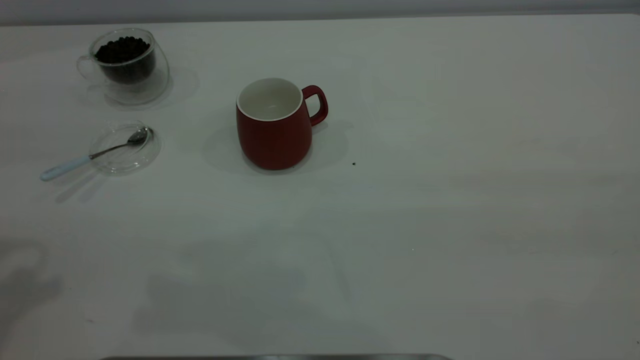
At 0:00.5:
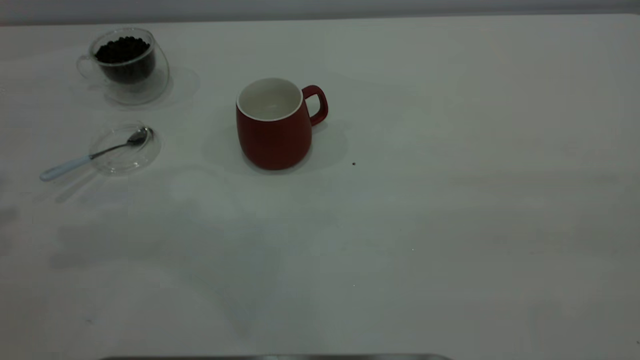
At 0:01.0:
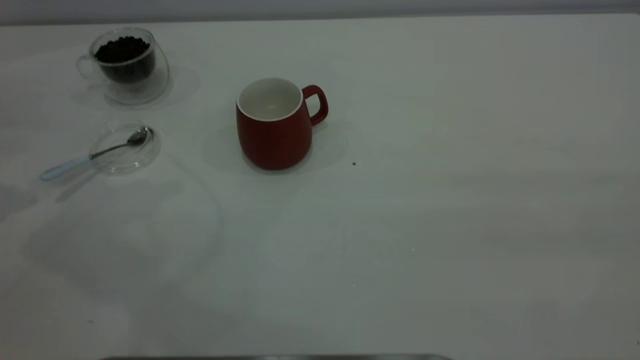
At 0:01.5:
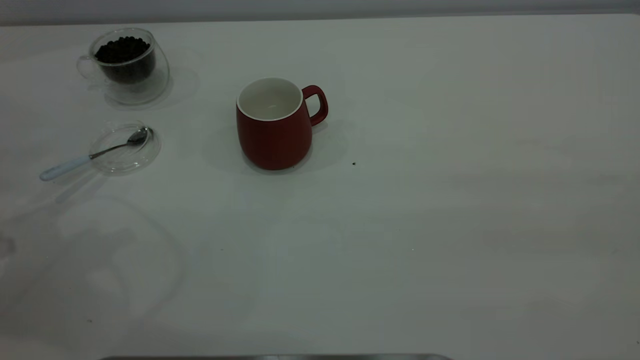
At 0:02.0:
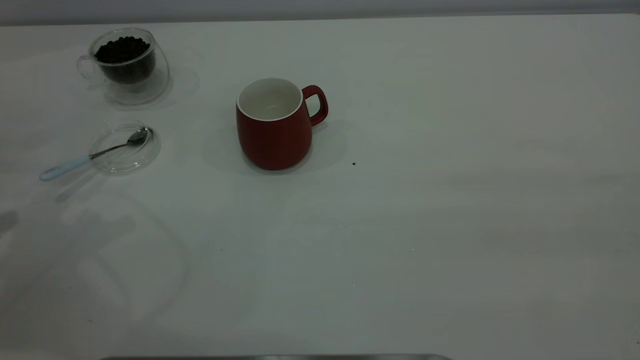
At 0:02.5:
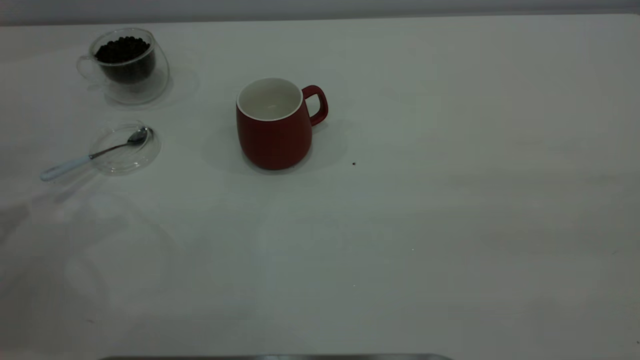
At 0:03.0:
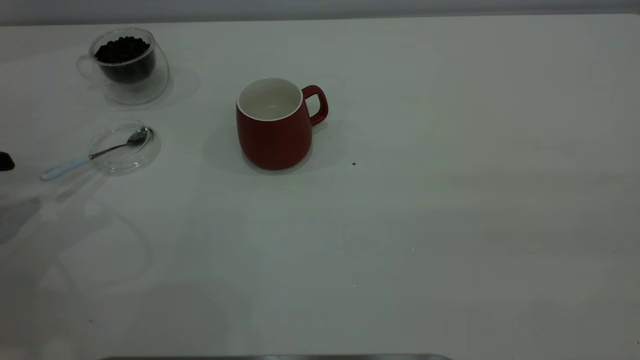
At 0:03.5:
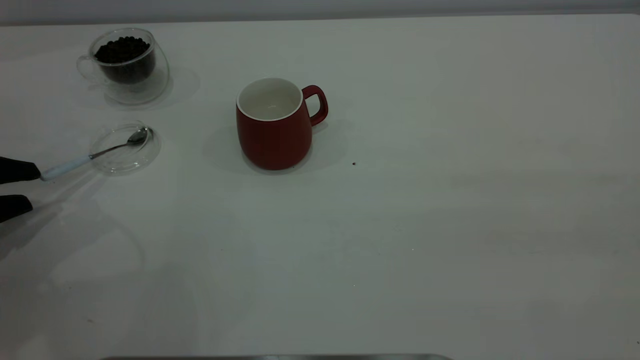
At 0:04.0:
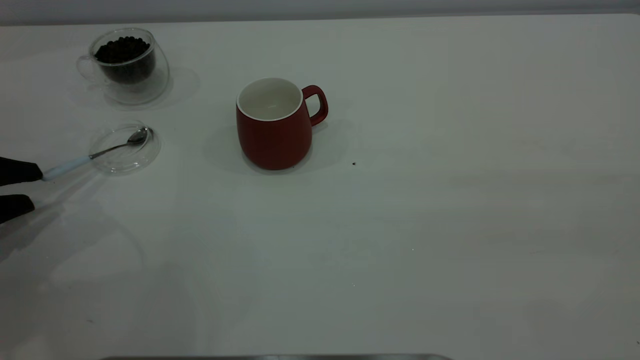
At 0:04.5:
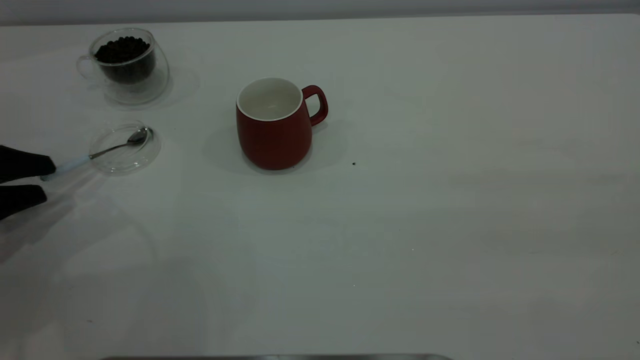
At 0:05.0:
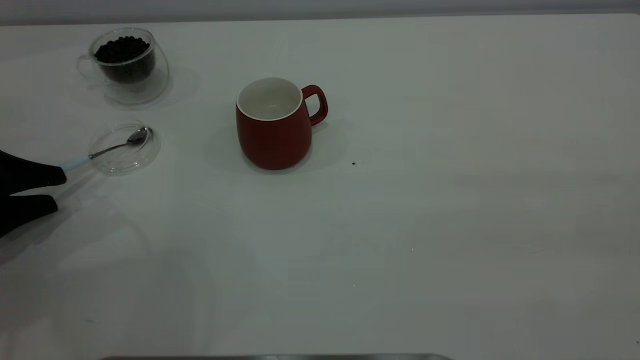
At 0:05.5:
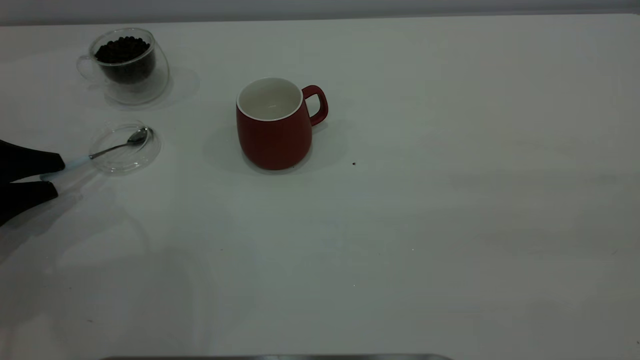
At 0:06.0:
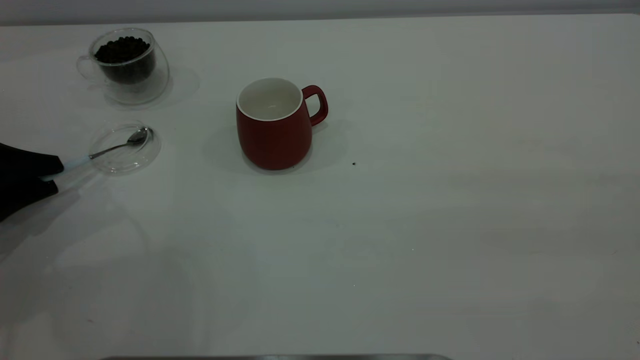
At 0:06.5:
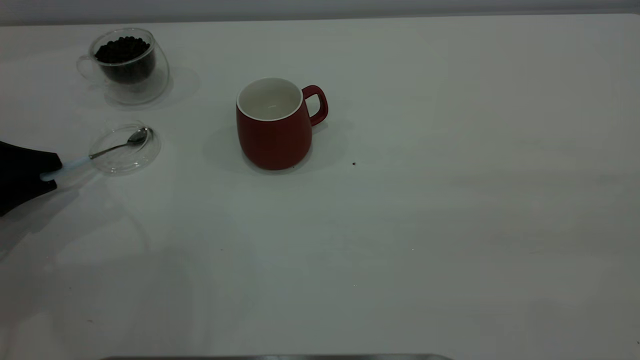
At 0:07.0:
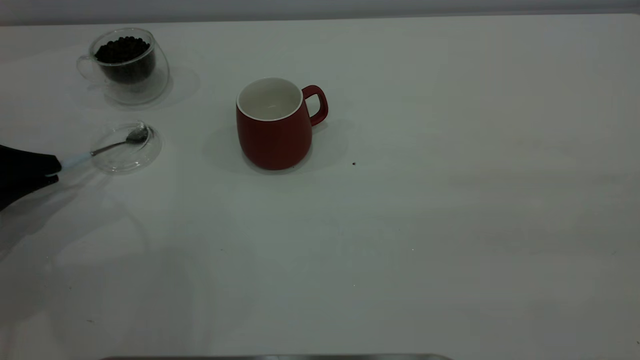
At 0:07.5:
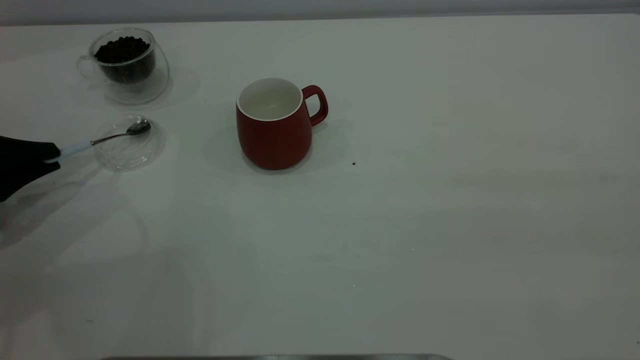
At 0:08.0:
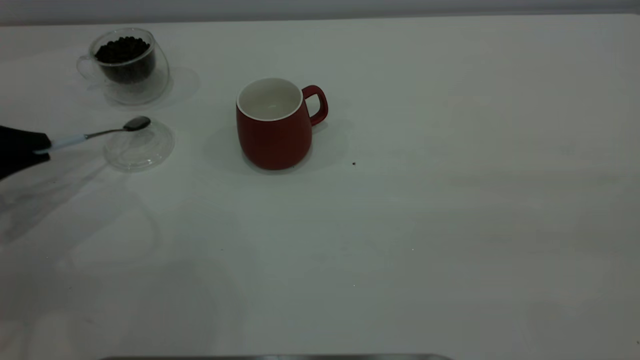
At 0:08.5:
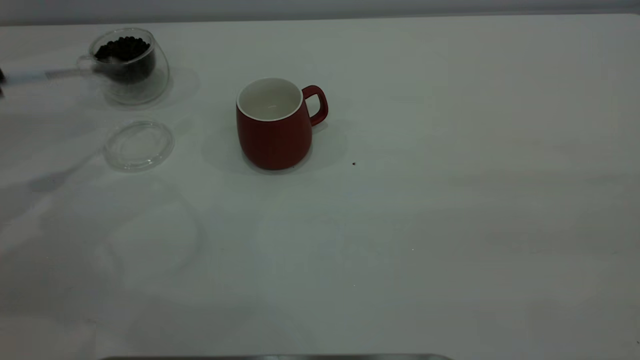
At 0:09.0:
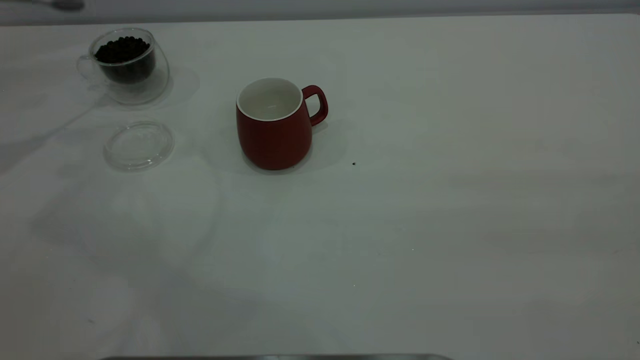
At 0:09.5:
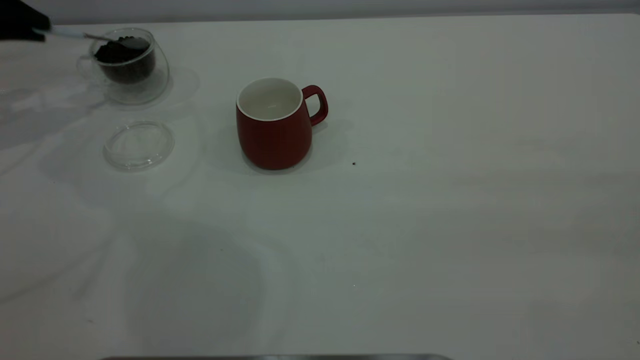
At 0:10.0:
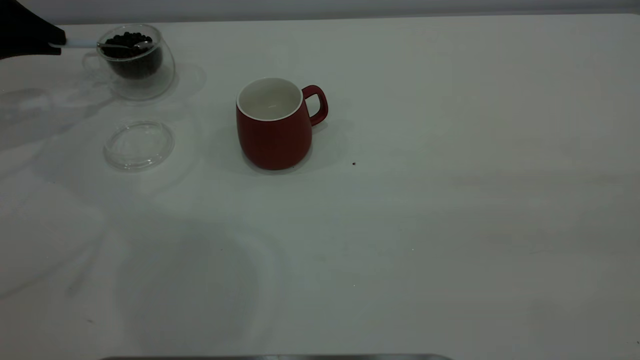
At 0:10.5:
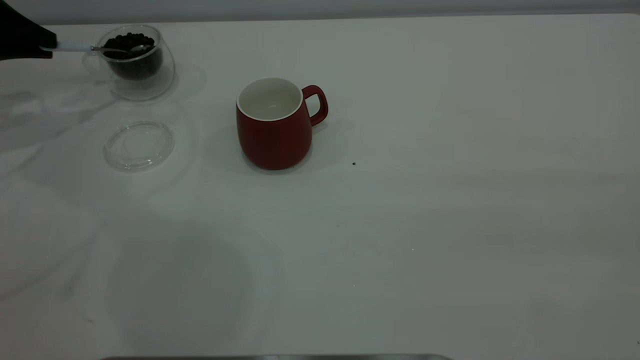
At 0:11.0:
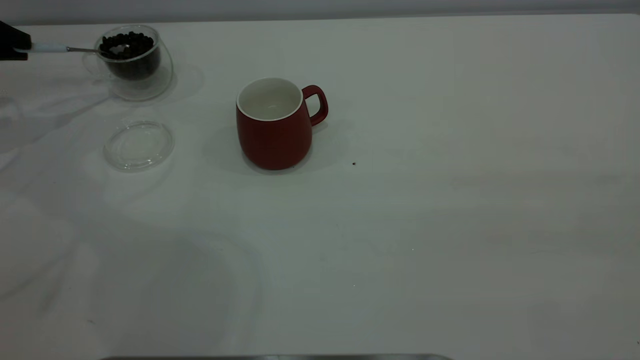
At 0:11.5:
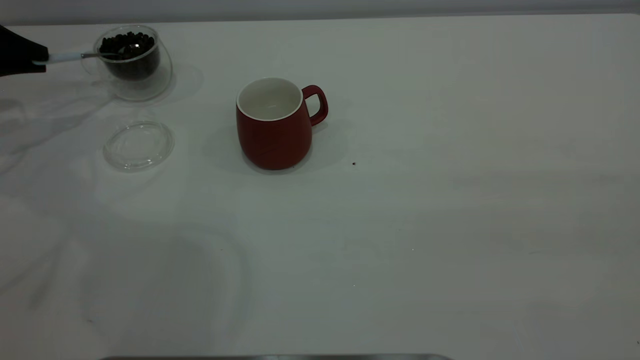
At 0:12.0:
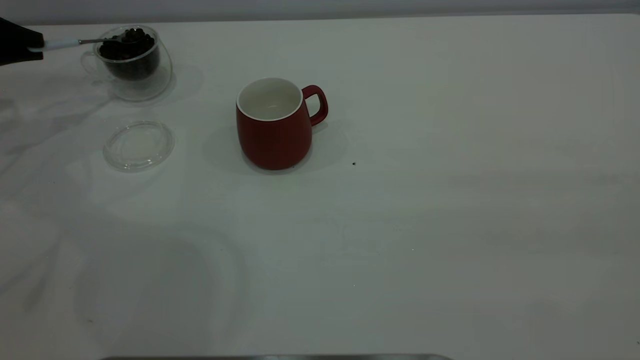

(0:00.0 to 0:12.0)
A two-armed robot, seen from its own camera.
Task of the whole recording: the right gripper place the red cup in the center of the table, the left gripper take the blue spoon from the cup lid and scoop out the coffee beans from the coffee cup and put them into the red cup, the left gripper put the spoon back into the cup lid.
Step, 0:00.0 - 0:08.0: Pick up the spoon.
0:02.0 - 0:04.0: The left gripper is displaced downward by about 10 cm.
0:04.0 - 0:06.0: The grippers move only a little.
0:06.0 - 0:08.0: The left gripper closes its fingers.
0:08.0 - 0:10.0: The left gripper moves forward, approximately 15 cm.
0:10.0 - 0:12.0: There are only small adjustments of the grippers.

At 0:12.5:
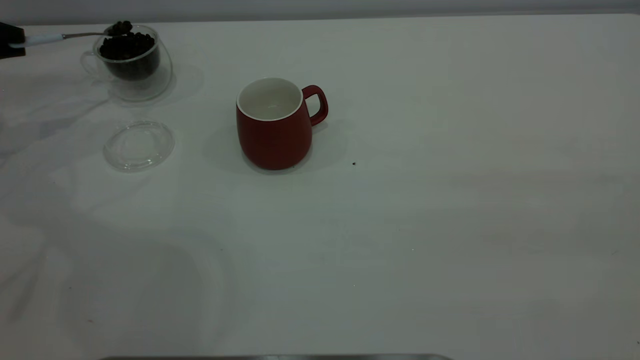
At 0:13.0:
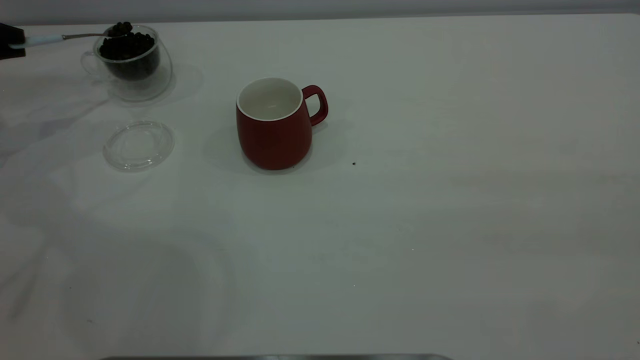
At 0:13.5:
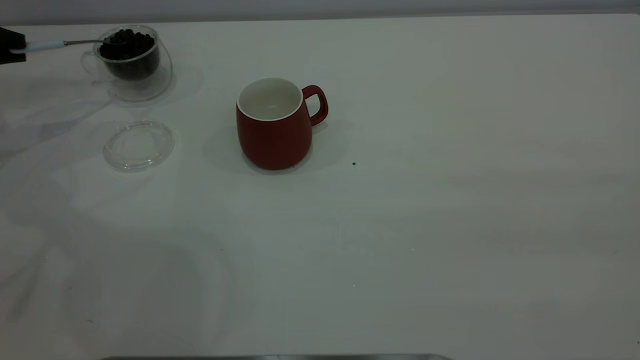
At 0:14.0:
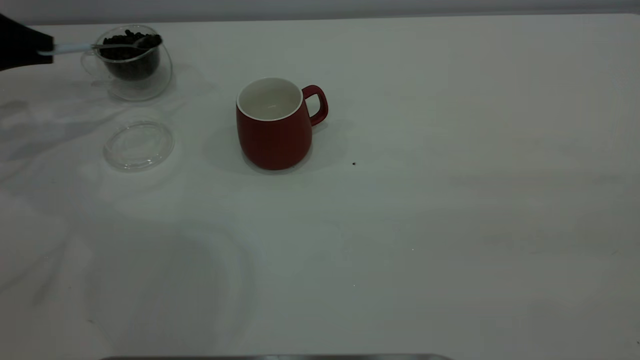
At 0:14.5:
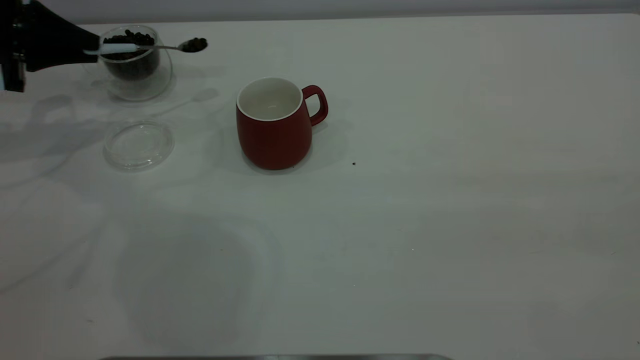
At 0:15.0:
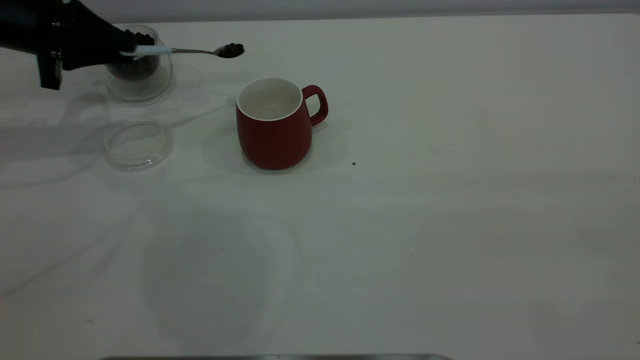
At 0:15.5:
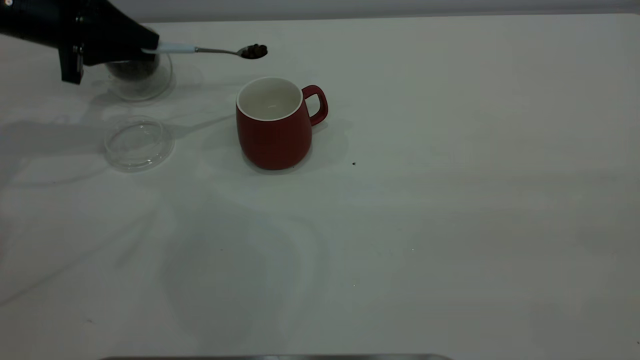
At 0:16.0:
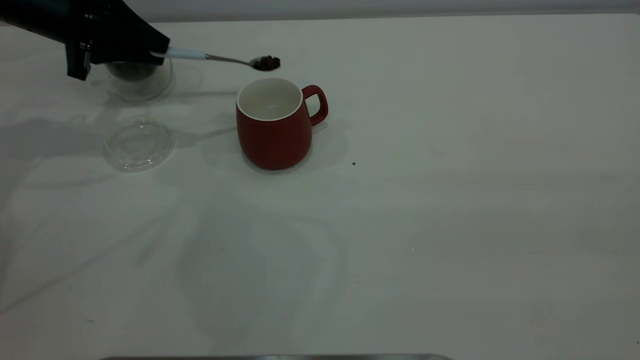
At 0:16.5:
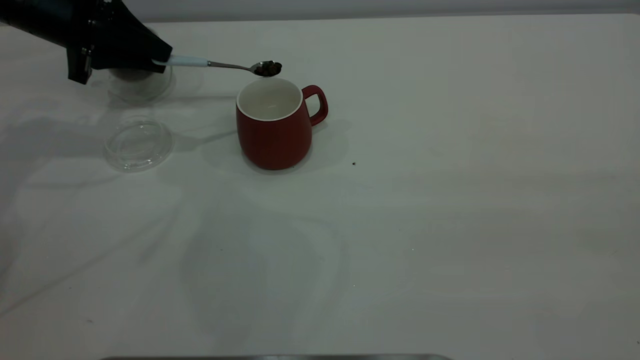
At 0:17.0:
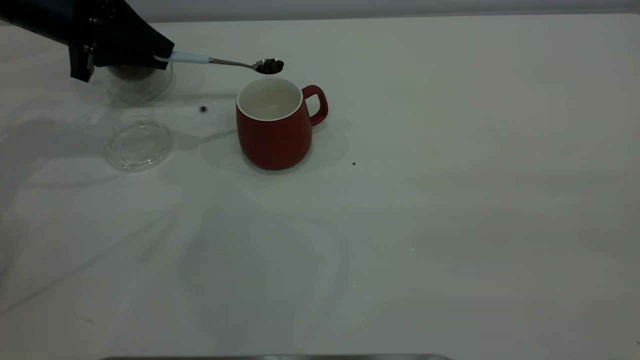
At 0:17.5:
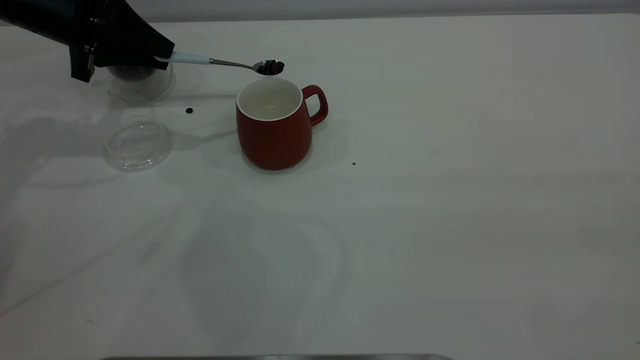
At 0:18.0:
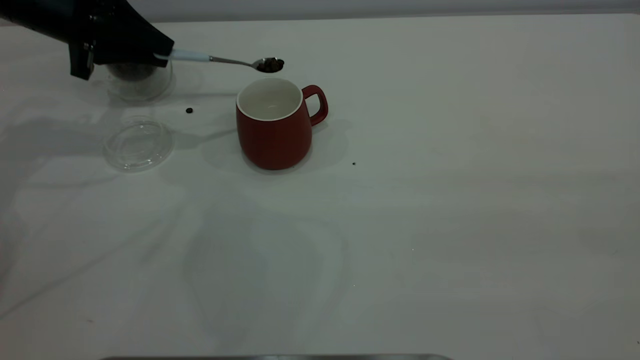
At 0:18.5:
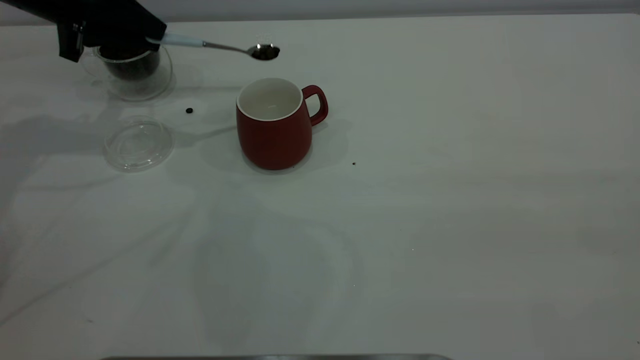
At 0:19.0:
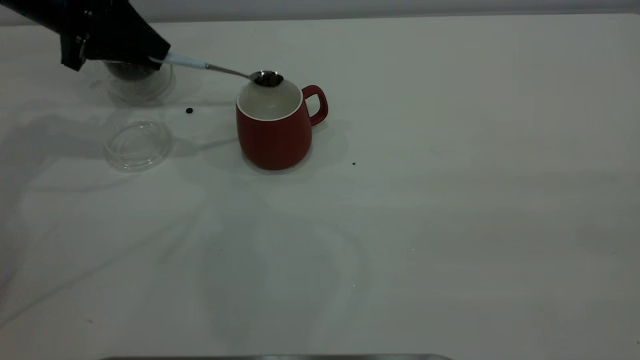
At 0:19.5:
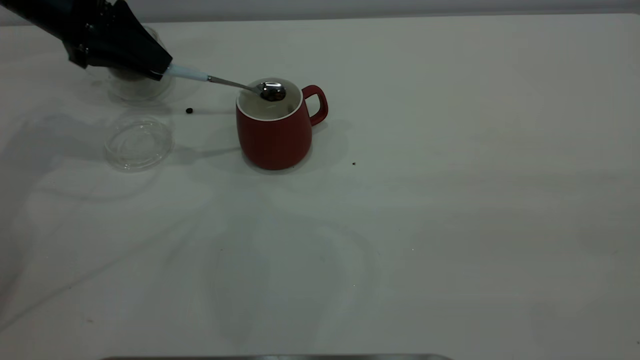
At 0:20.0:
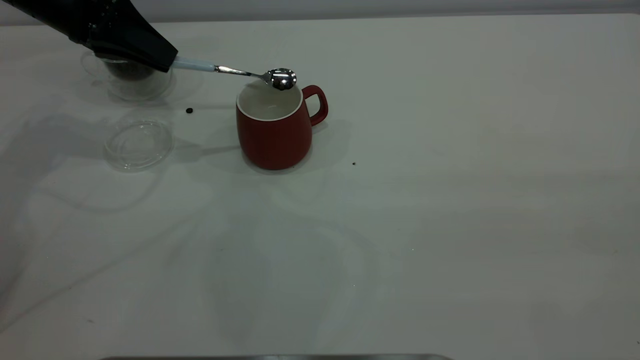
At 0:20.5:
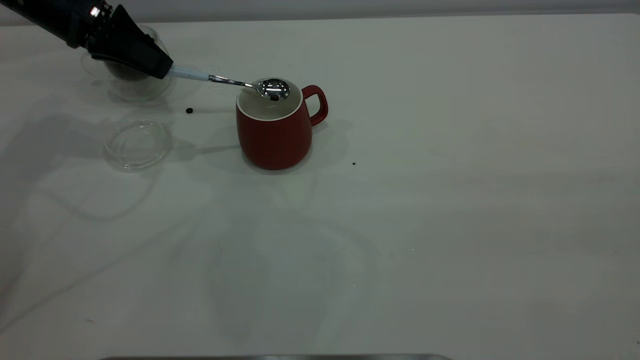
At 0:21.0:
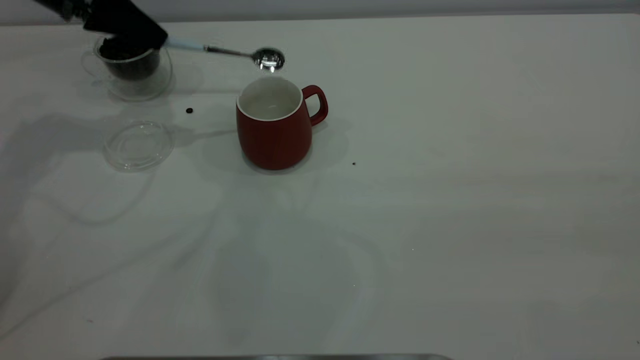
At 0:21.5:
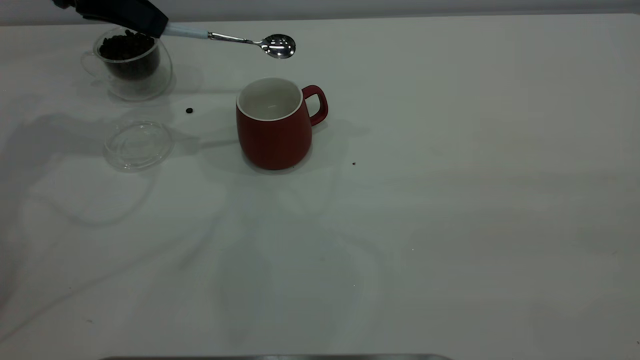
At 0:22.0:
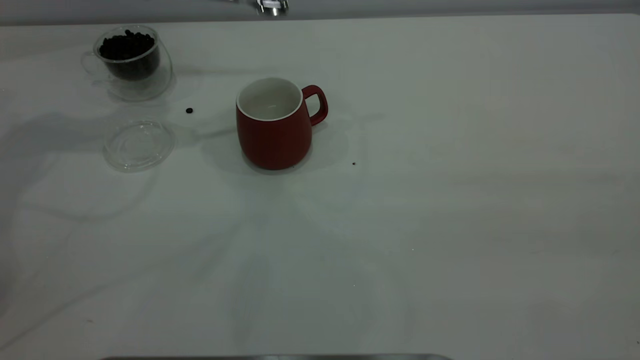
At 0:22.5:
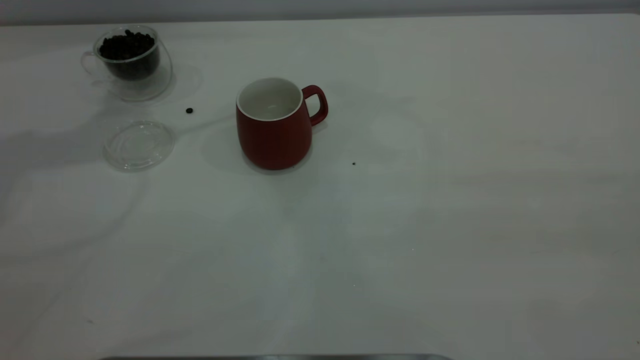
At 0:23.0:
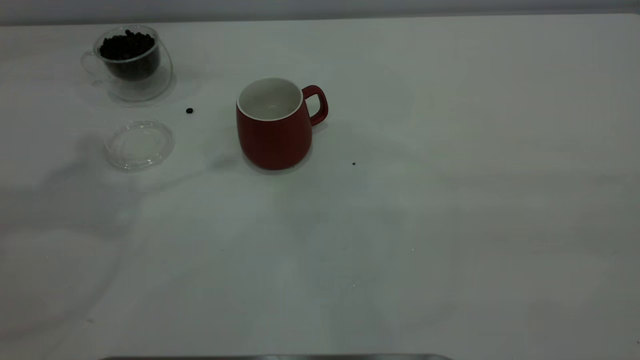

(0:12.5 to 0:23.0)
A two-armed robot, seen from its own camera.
Task of the whole recording: the right gripper place the red cup in the center of the table, the left gripper take the blue spoon from the cup lid and scoop out the coffee beans from the coffee cup and put them into the red cup, the left gripper put the spoon back into the cup lid.
Step, 0:12.5 - 0:21.0: Scoop a spoonful of beans into the cup.
0:12.5 - 0:14.5: The left gripper moves to the right, roughly 10 cm.
0:14.5 - 0:16.5: The left gripper goes some 10 cm to the right.
0:16.5 - 0:19.0: The grippers make only small movements.
0:21.0 - 0:23.0: The left gripper shifts some 20 cm upward and backward.
